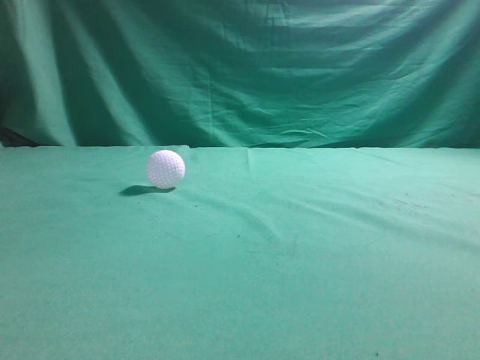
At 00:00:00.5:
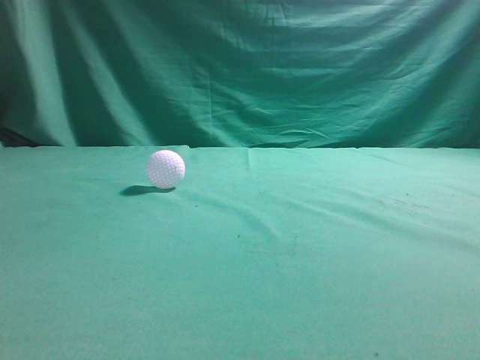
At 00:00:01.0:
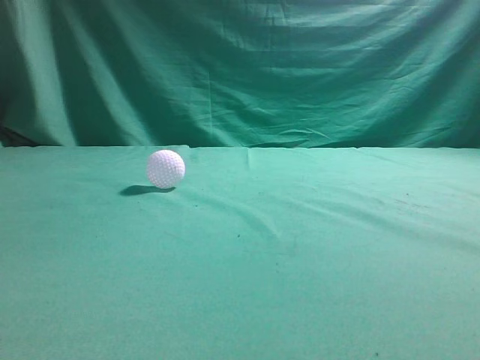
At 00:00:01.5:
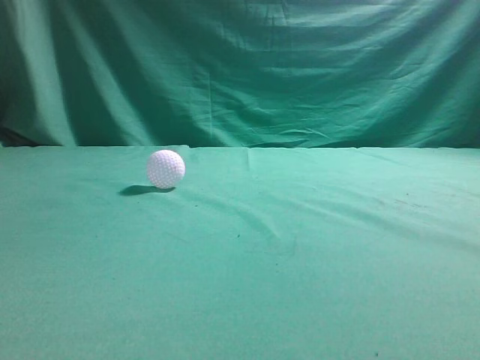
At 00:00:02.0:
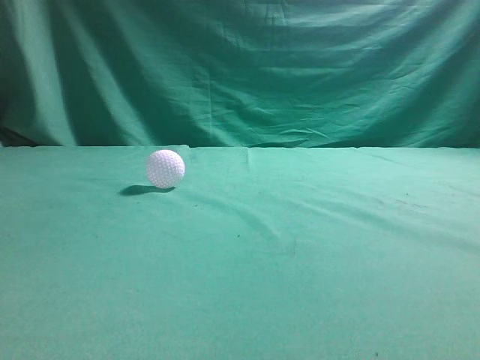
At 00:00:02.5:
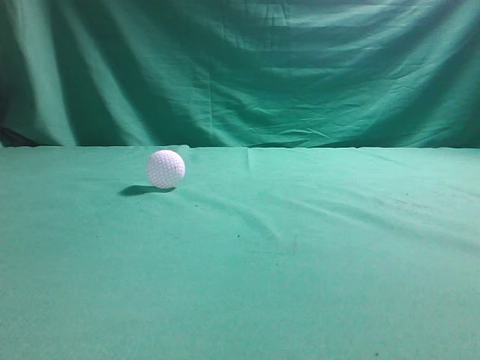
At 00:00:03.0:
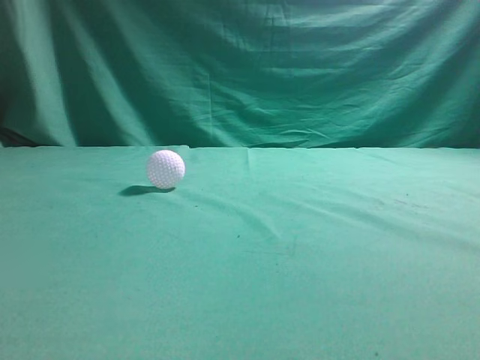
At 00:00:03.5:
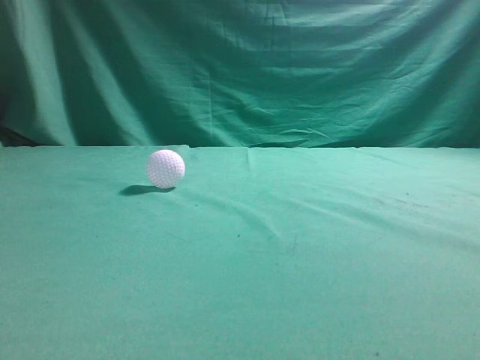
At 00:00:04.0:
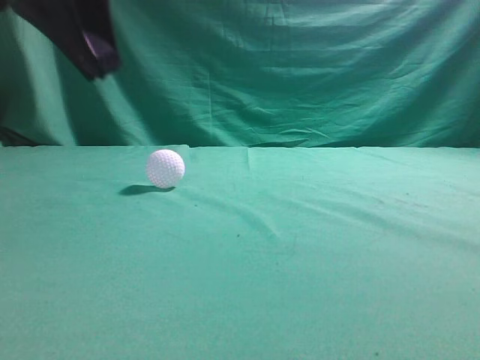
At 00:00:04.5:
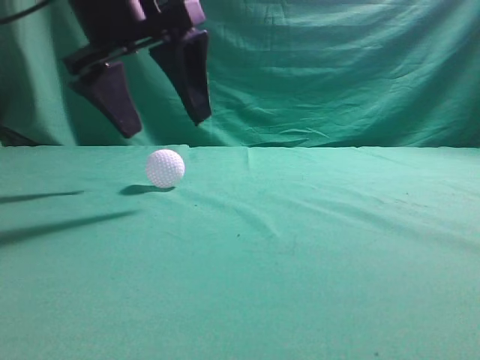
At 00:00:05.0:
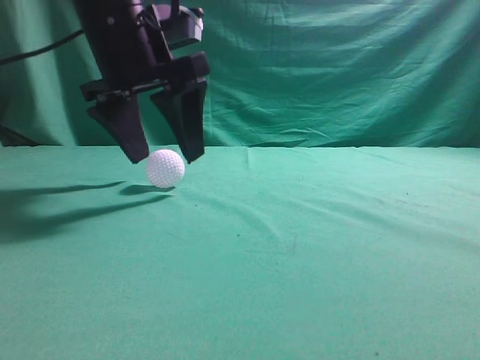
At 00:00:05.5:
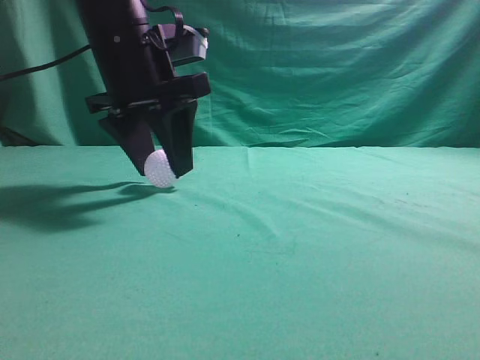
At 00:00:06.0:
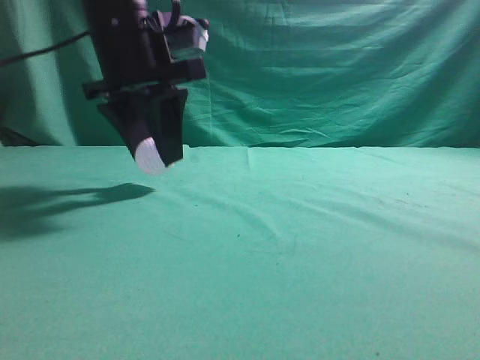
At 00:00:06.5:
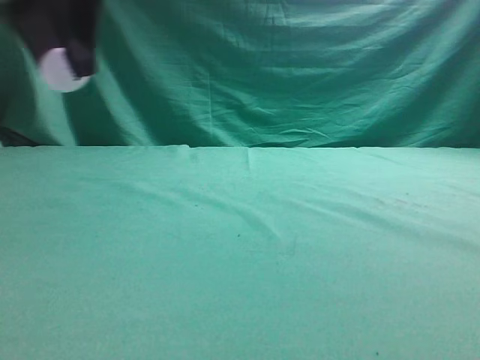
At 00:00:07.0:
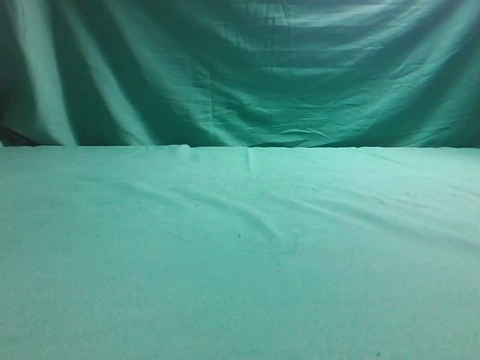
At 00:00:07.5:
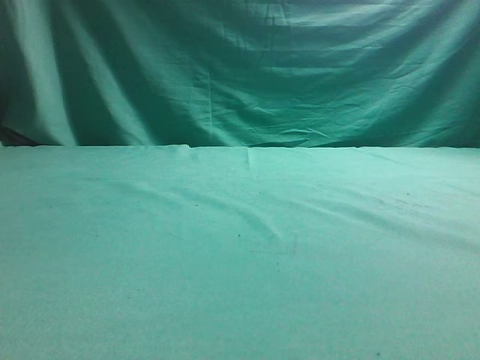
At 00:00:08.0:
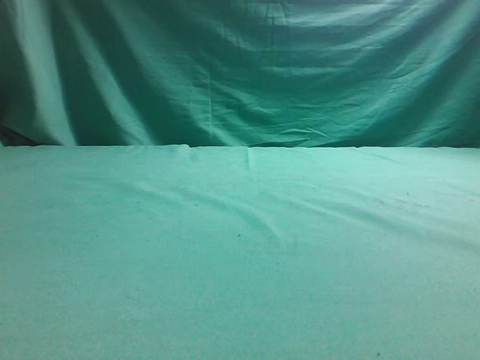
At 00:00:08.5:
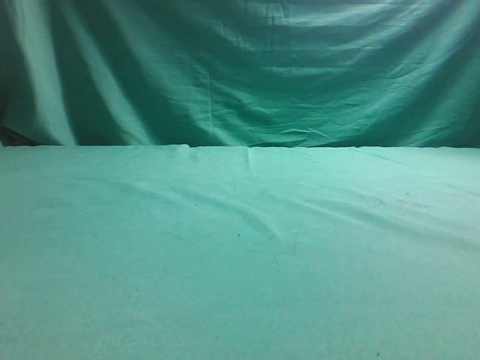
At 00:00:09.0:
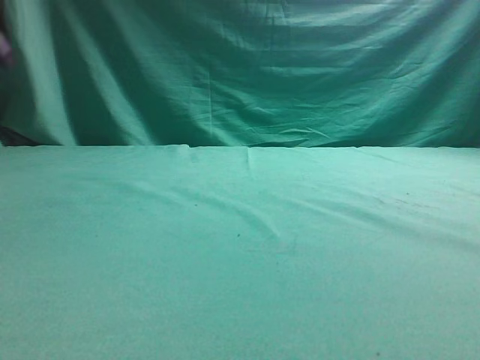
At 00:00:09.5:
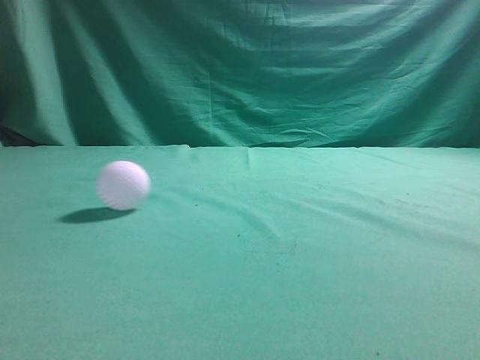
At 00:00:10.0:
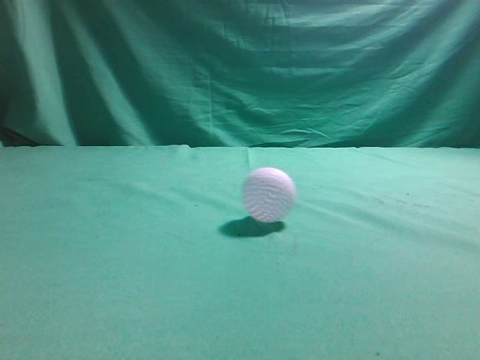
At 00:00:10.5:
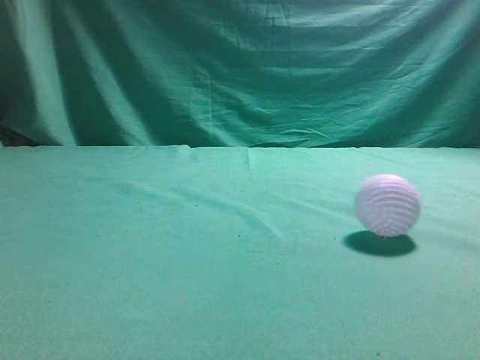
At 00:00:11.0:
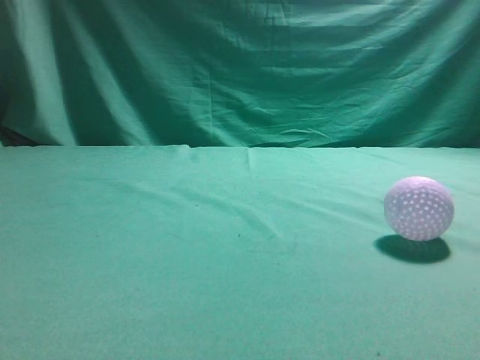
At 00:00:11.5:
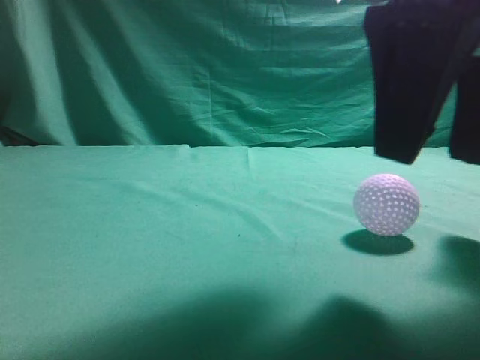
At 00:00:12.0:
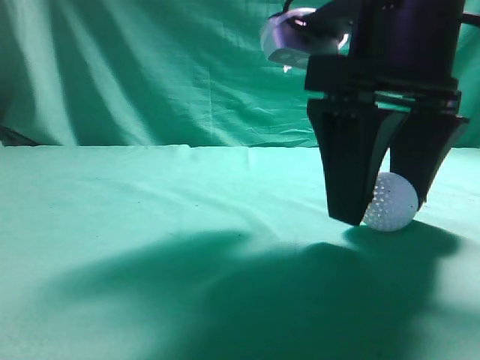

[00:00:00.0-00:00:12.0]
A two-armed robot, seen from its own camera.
Task of the whole recording: pick up the ball and place it on the plate, then pick up the ball from the plate and put it in the center of the table.
Step, 00:00:00.0 to 00:00:06.0: Grab the spherical object with your left arm.
Step, 00:00:06.5 to 00:00:08.5: Place the sphere on the white object.
00:00:02.0 to 00:00:04.0: The left gripper heads forward and to the right, covering some 25 cm.
00:00:04.0 to 00:00:06.0: The left gripper is displaced forward and downward by about 10 cm, and opens its fingers.
00:00:06.0 to 00:00:08.0: The left gripper moves to the left, roughly 25 cm; the right gripper shifts approximately 10 cm upward.
00:00:08.0 to 00:00:10.0: The left gripper heads backward, upward and to the right, covering about 25 cm, and closes.
00:00:10.0 to 00:00:12.0: The left gripper moves backward, approximately 5 cm, while the right gripper travels to the left, forward and downward by about 25 cm, and opens its fingers.

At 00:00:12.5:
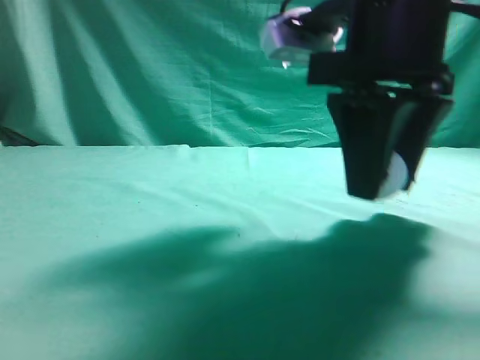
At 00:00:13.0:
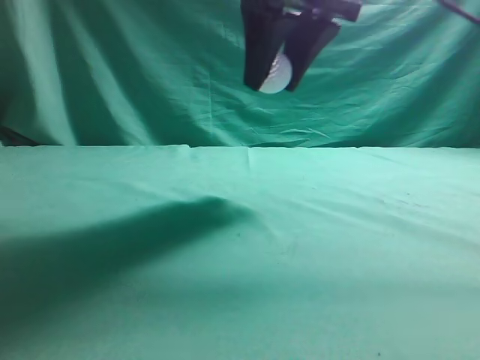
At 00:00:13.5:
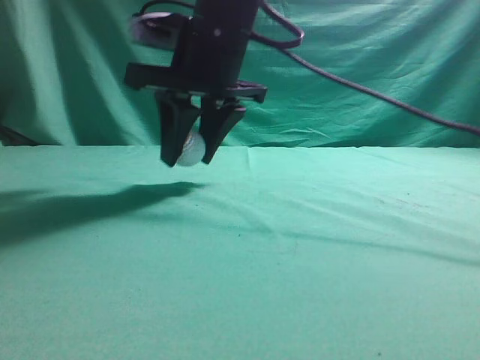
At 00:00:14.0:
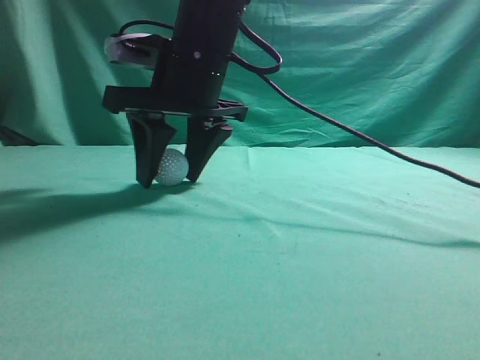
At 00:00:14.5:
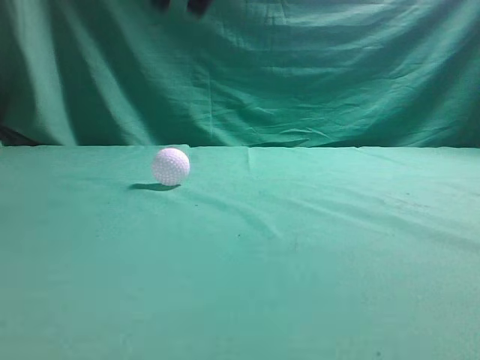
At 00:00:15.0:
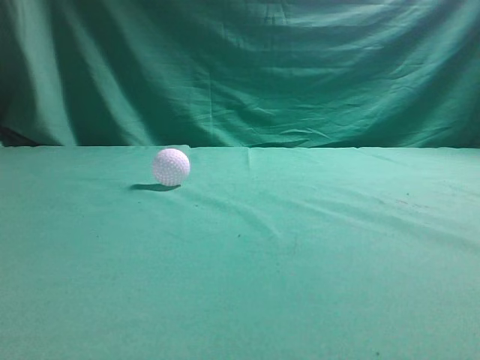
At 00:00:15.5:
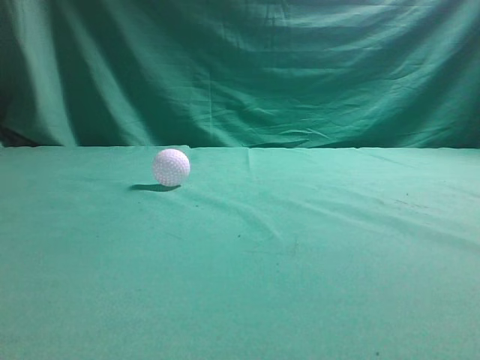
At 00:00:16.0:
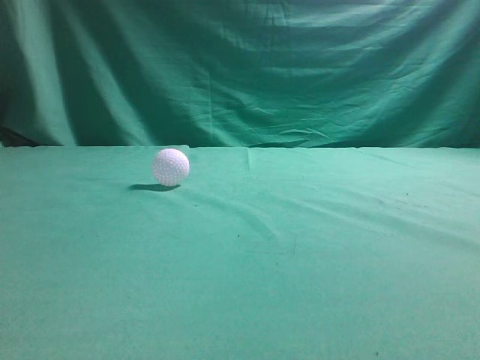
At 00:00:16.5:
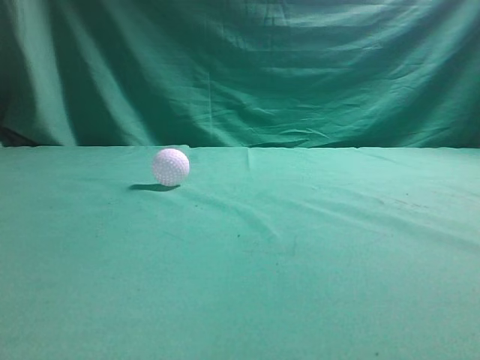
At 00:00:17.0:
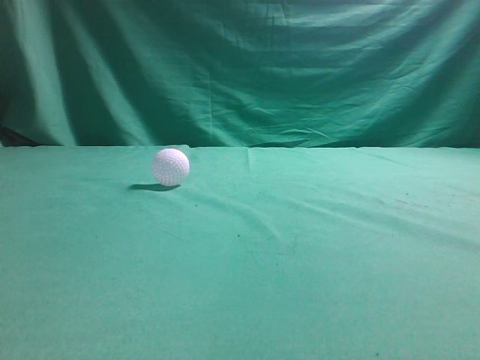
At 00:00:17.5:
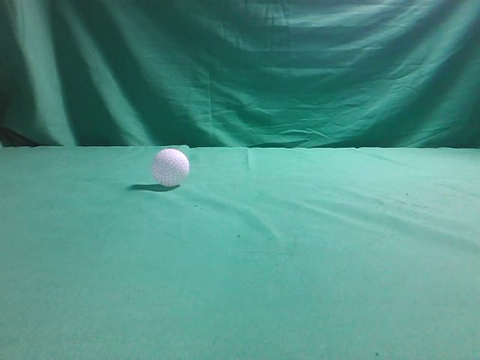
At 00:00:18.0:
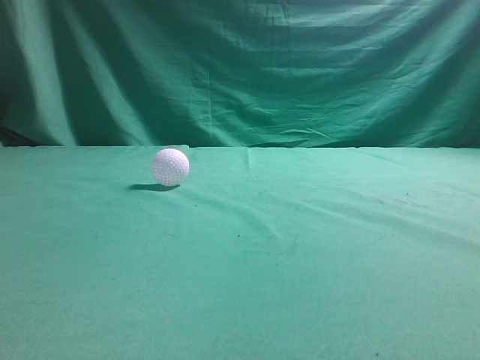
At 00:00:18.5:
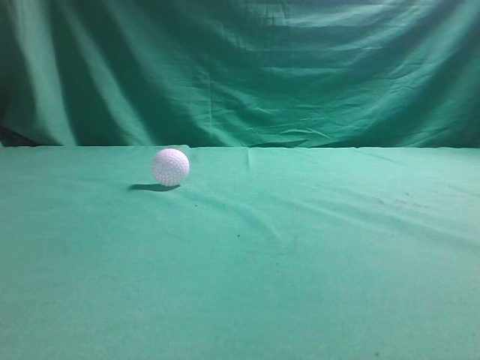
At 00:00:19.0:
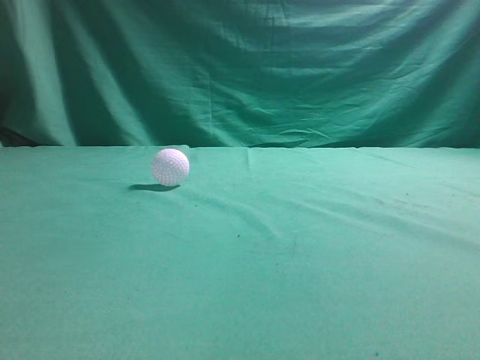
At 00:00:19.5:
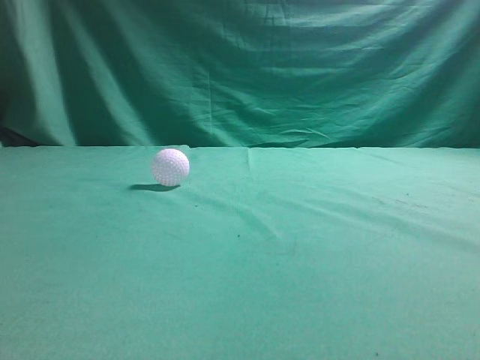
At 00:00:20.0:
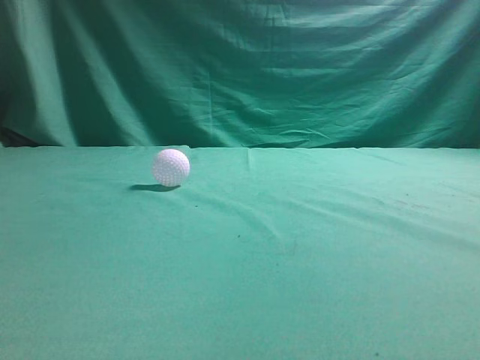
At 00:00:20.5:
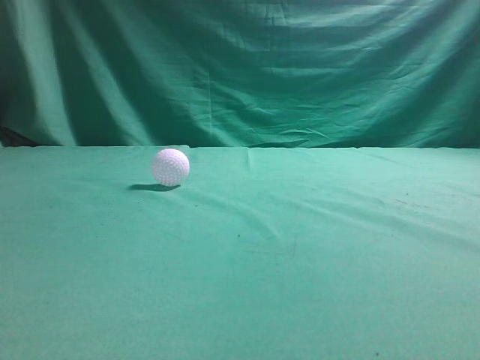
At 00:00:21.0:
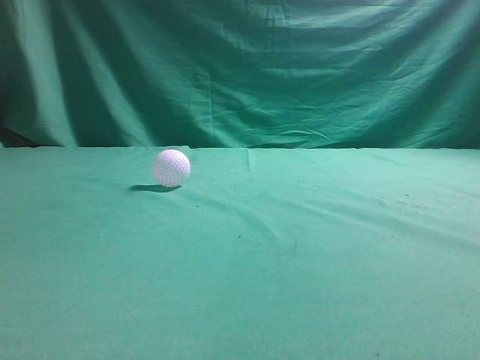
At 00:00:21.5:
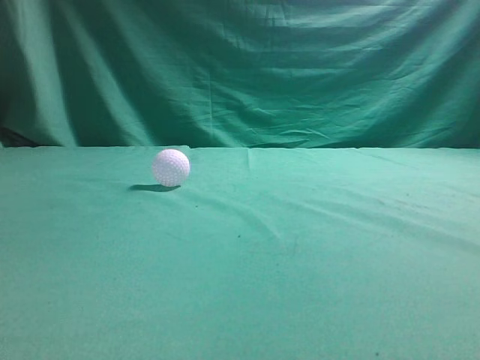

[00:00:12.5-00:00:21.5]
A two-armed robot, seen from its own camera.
Task of the whole recording: pick up the ball and place it on the plate, then pick up the ball from the plate and put it in the center of the table.
Step, 00:00:13.0 to 00:00:14.0: Put the picked-up object on the table.
00:00:12.5 to 00:00:14.5: The right gripper moves up and down over roughly 15 cm, changing direction 2 times.
